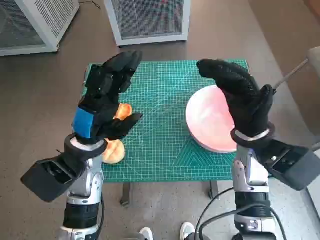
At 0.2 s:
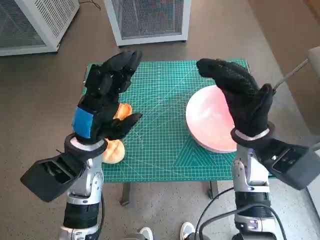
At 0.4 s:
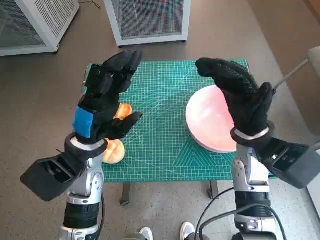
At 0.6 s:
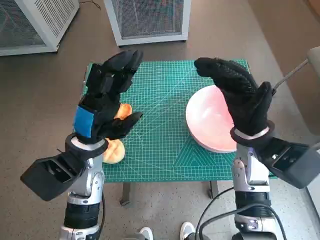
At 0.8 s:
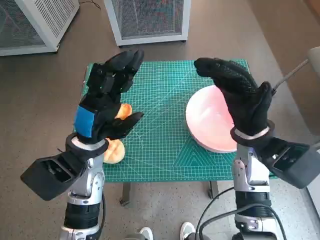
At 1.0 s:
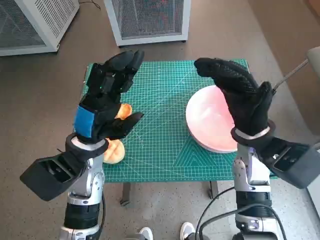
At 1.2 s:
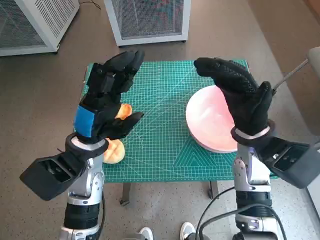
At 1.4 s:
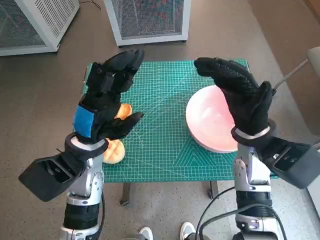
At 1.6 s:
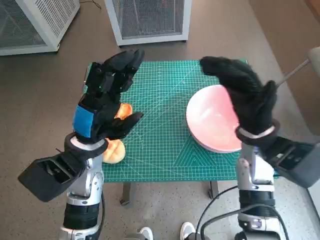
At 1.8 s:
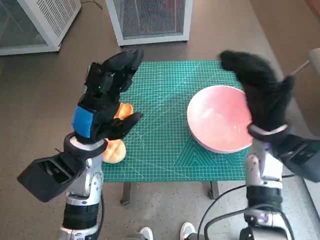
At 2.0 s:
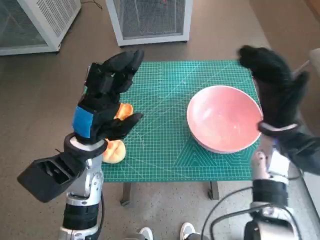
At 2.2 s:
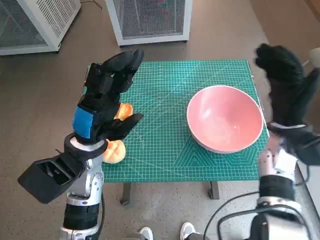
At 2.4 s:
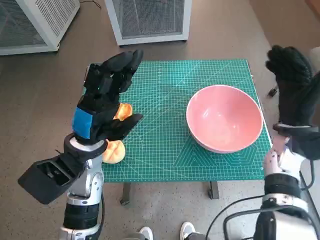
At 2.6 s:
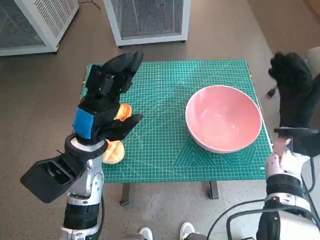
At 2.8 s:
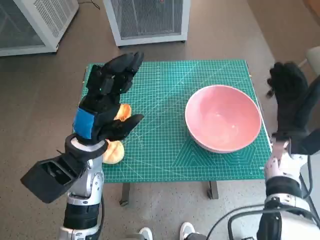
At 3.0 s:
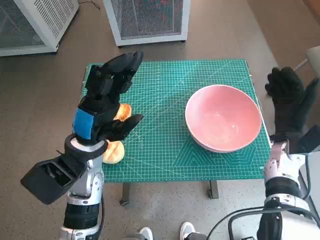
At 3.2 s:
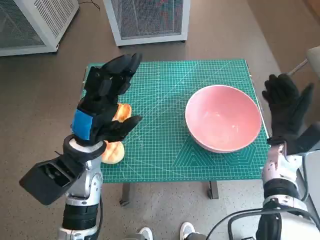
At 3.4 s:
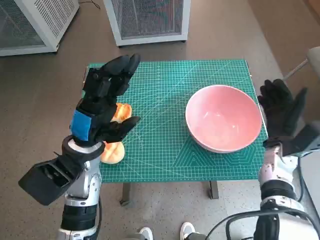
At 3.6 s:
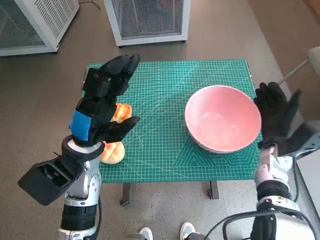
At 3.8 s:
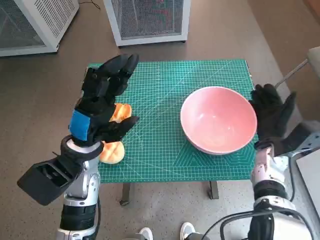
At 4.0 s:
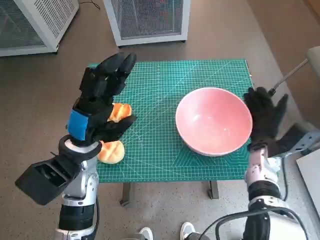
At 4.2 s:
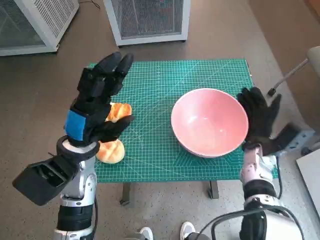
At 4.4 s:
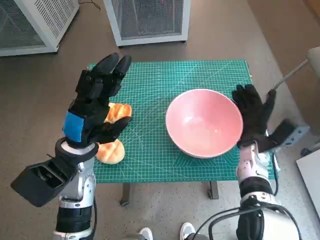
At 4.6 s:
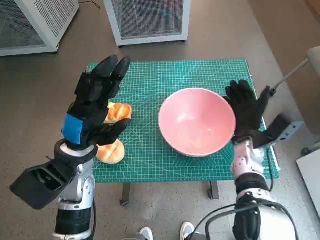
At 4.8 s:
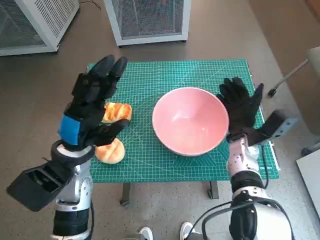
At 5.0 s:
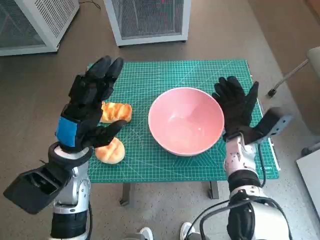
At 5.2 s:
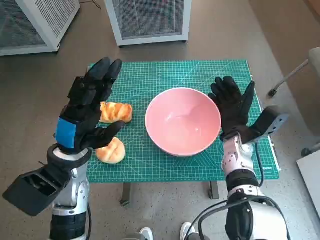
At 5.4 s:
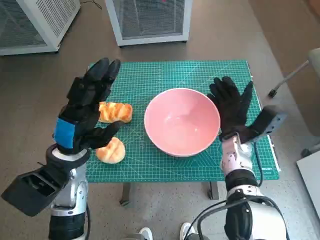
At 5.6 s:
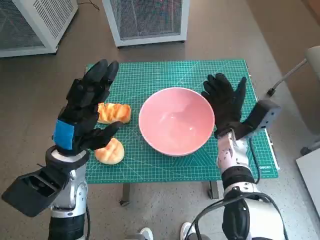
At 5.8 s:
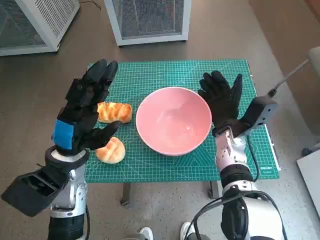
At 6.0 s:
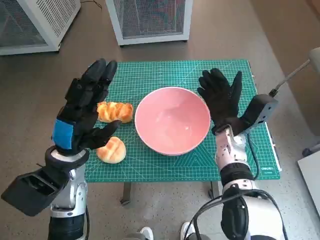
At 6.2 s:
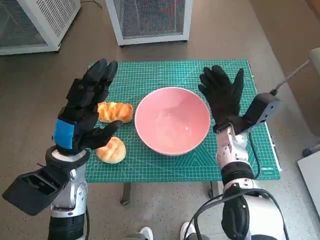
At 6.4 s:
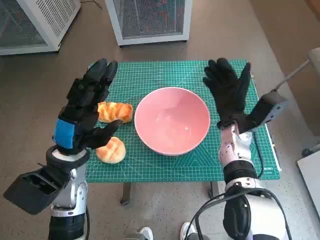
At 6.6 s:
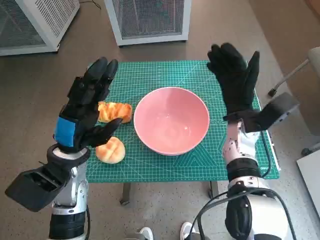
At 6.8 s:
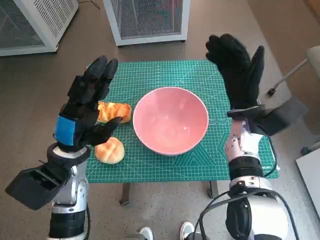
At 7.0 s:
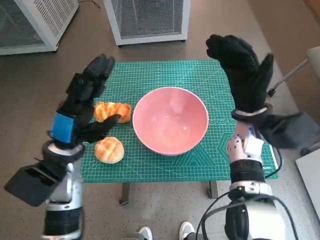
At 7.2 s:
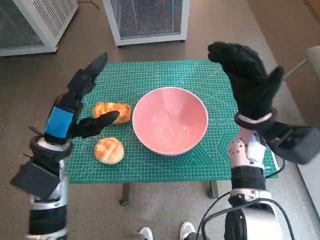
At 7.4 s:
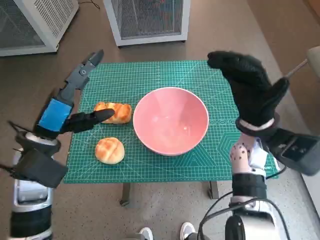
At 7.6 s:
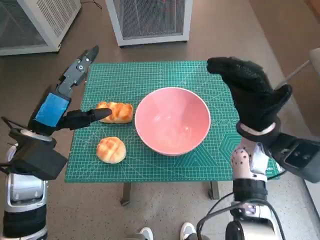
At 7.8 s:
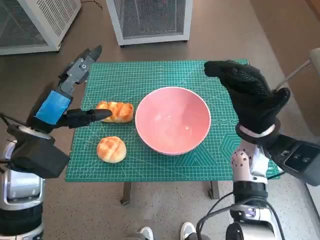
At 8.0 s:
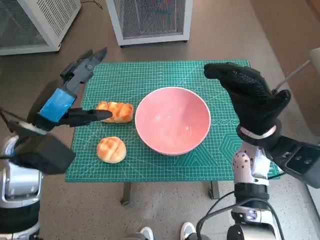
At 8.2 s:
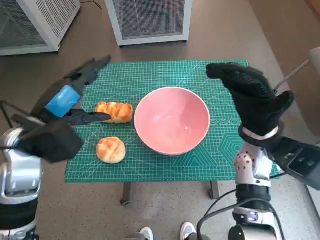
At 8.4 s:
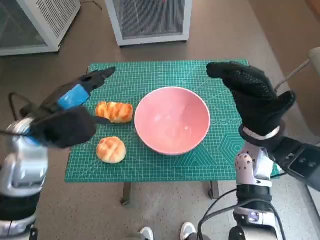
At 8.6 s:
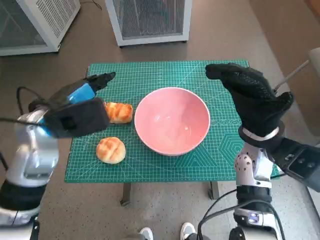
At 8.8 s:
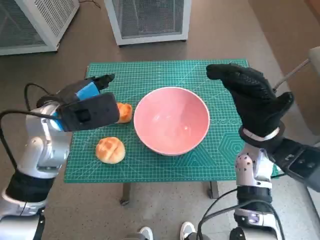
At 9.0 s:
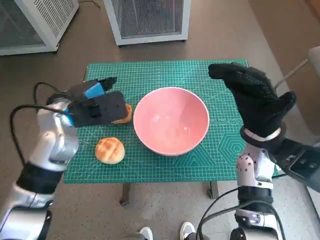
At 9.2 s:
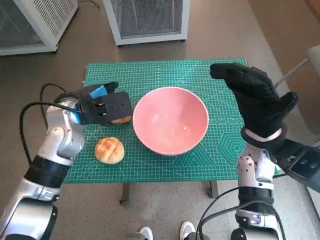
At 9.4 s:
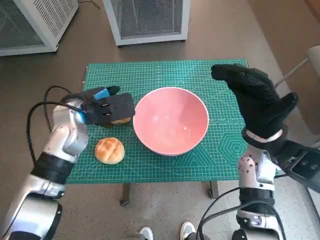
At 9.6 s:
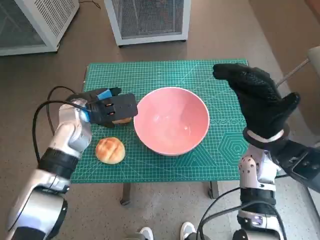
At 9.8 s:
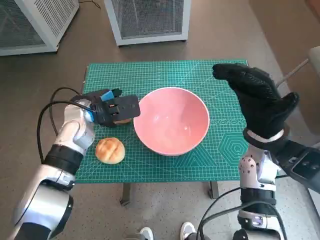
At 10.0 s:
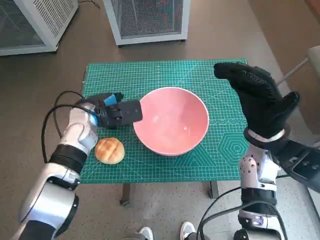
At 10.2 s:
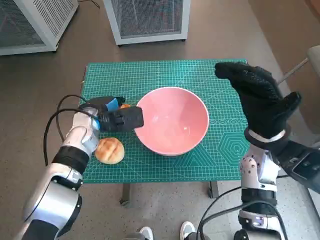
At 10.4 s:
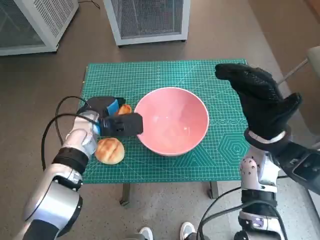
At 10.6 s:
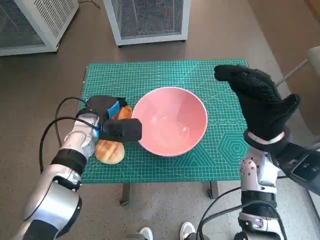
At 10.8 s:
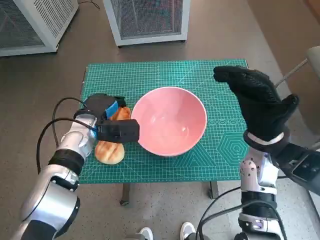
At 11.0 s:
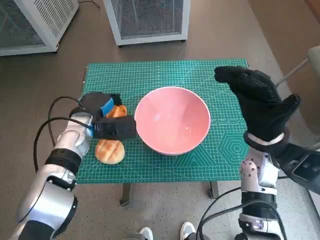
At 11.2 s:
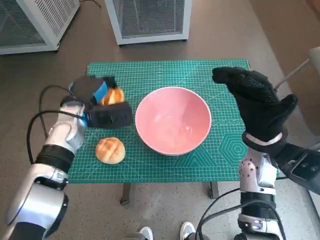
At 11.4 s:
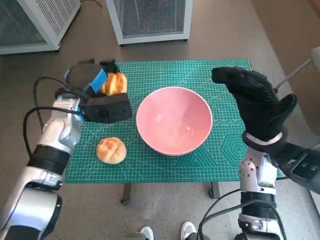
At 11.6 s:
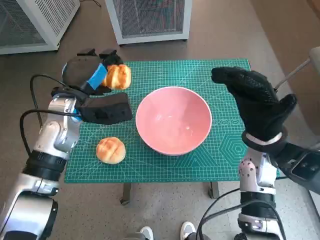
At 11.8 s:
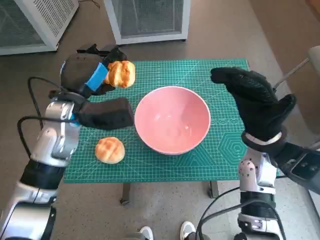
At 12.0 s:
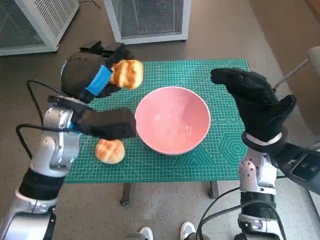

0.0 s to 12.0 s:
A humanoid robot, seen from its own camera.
Task of the whole recording: Push the bowl into the center of the table and put the bread into the bowl.
Step, 0.0 to 6.2 s: Move the pink bowl to the center of table with right hand.
Step, 6.4 to 10.4 s: Grasp the long bread with left hand.
1.6 to 3.0 s: The right hand is displaced to the right and downward by approximately 10 cm.
3.0 to 4.4 s: The right hand heads to the left, covering roughly 5 cm.
4.4 to 6.0 s: The right hand goes about 5 cm to the left.
6.0 to 7.6 s: The right hand is displaced upward by approximately 5 cm. The left hand changes place by some 5 cm.
7.6 to 9.0 s: The left hand goes about 5 cm forward.
9.0 to 10.4 s: The left hand moves downward, approximately 10 cm.
10.4 to 12.0 s: The left hand shifts roughly 10 cm upward.

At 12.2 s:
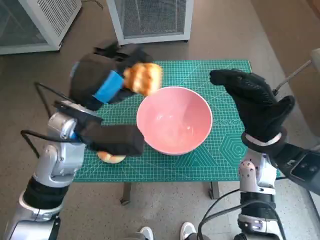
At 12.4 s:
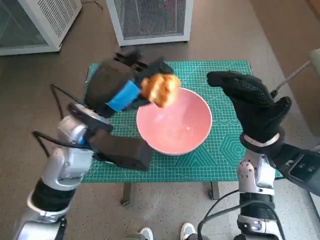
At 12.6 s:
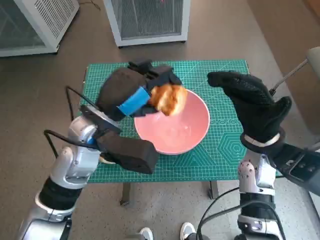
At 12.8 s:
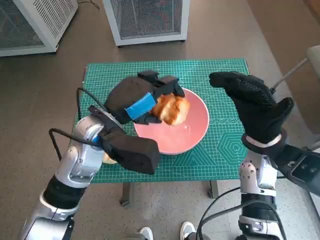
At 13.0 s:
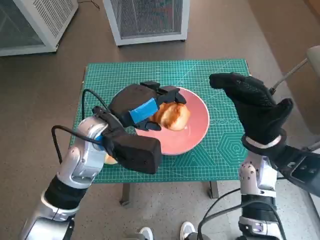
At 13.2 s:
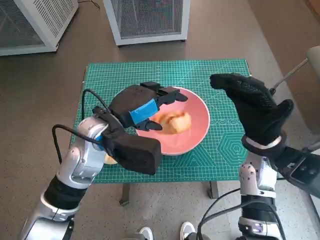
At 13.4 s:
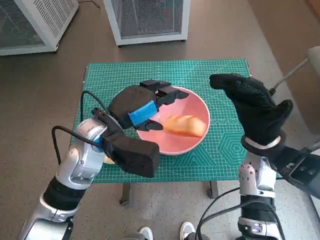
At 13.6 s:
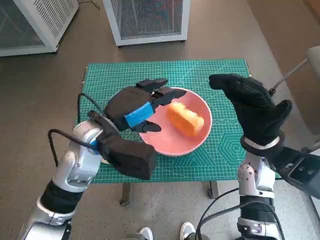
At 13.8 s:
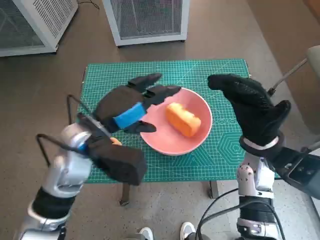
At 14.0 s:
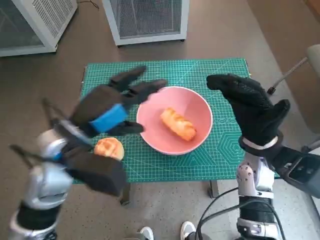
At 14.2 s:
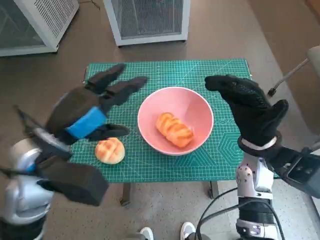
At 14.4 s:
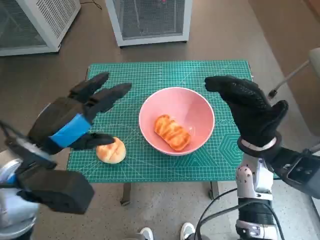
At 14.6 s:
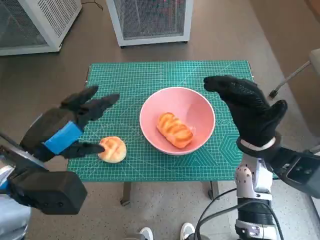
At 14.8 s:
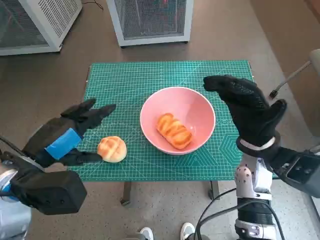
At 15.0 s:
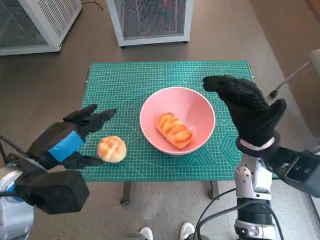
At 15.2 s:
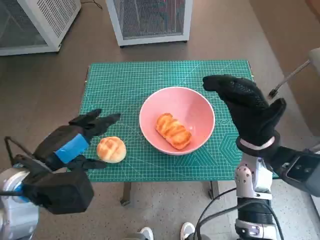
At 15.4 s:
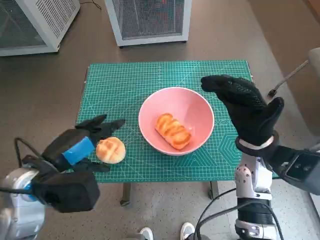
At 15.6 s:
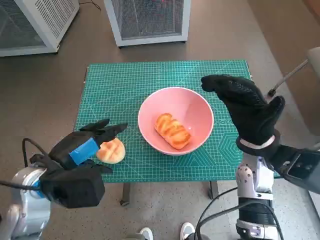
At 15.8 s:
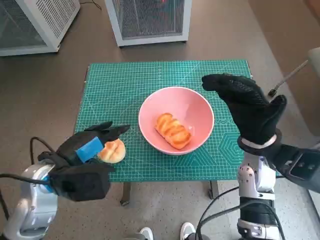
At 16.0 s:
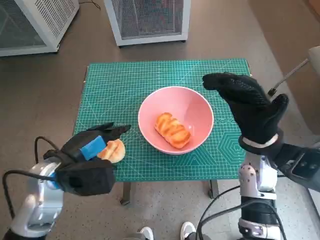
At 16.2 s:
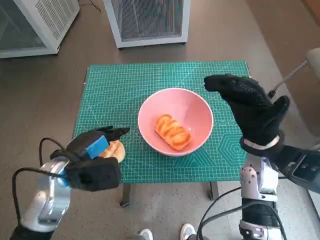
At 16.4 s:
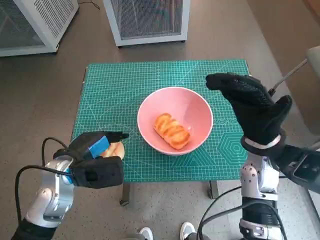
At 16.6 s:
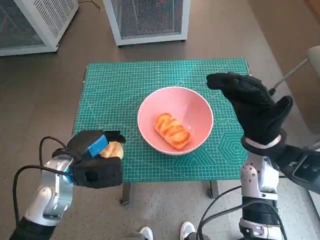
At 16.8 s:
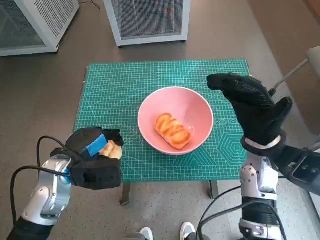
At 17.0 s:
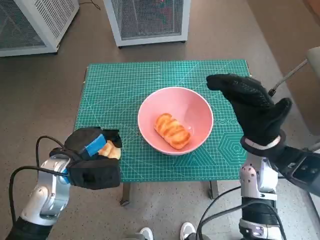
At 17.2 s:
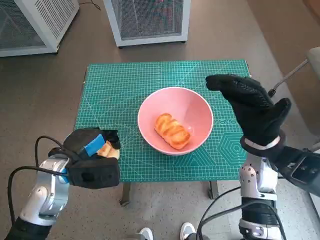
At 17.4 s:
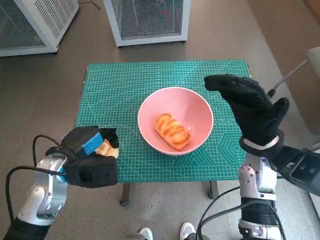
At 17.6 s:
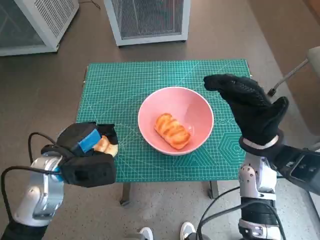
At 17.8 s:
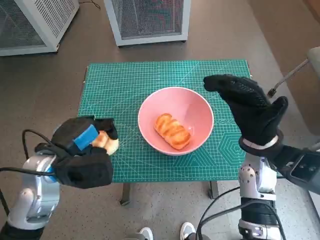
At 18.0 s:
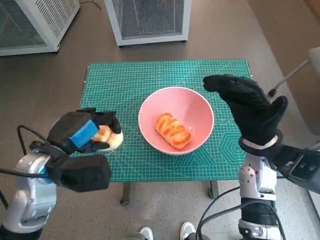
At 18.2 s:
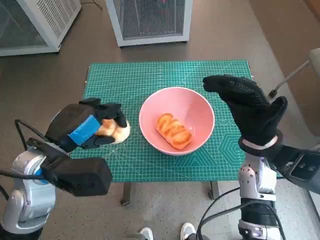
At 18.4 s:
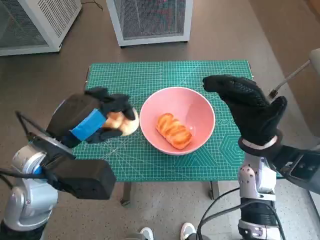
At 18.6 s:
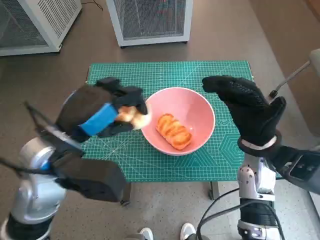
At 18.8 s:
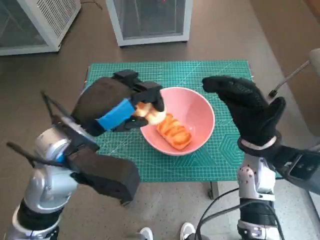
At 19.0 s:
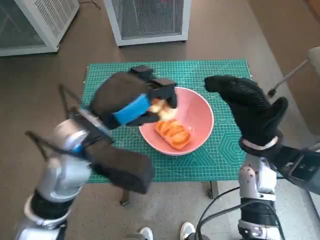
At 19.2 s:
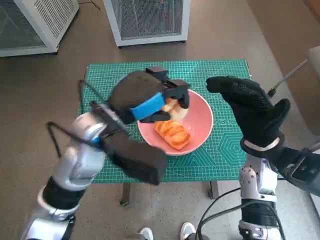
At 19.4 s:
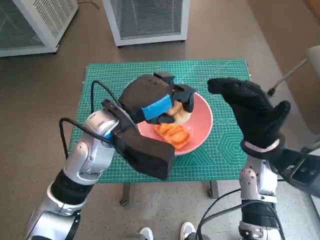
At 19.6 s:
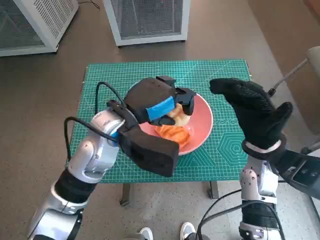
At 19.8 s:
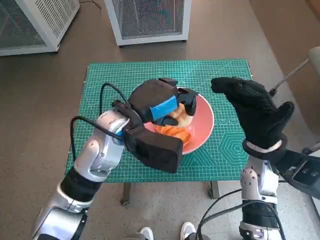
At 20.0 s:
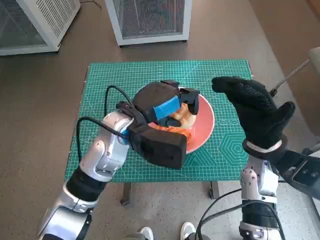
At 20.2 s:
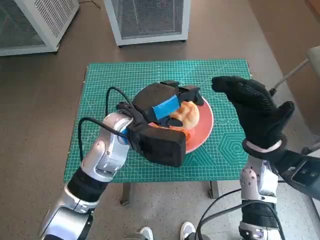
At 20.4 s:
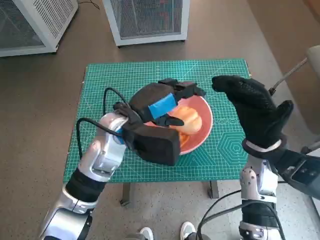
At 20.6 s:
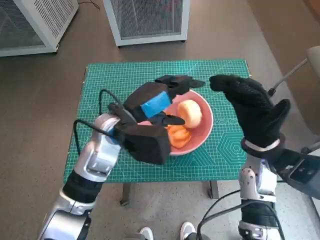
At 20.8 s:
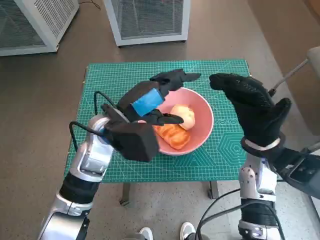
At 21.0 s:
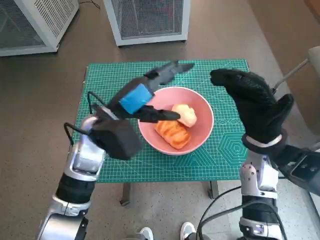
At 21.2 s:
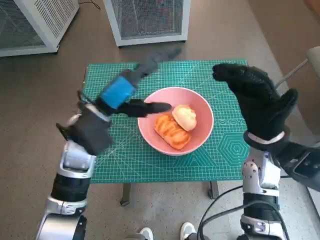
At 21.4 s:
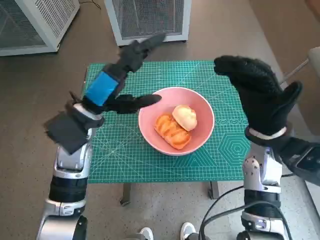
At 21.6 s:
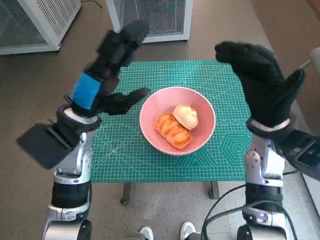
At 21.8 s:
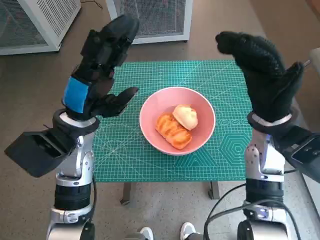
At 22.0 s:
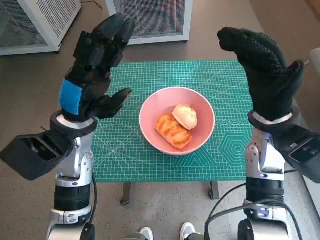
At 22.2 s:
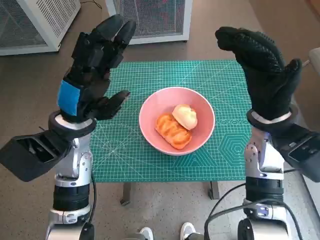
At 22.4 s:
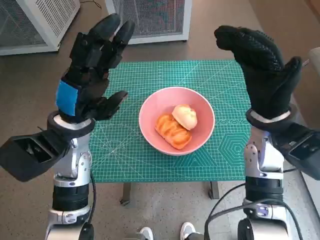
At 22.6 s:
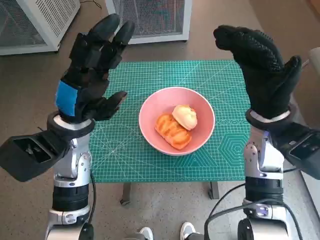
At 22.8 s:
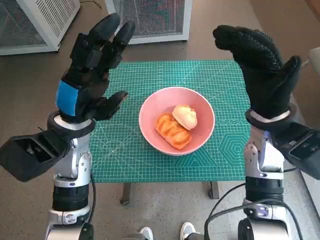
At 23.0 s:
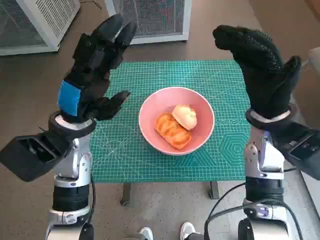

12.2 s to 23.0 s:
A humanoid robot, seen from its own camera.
Task of the whole recording: Push the bowl into the center of the table and put the bread into the bowl.
Step, 13.6 to 16.6 s: Grasp the round bread with left hand.
Step, 16.8 to 20.2 s: Place the round bread in pink bowl with left hand.
13.8 to 15.2 s: The left hand moves to the left and backward, about 10 cm.
15.2 to 16.8 s: The left hand travels downward by some 5 cm.
16.8 to 18.4 s: The left hand moves upward, some 10 cm.
18.4 to 20.0 s: The left hand is displaced to the right and forward by about 15 cm.
20.0 to 21.4 s: The left hand moves to the left, some 10 cm.
